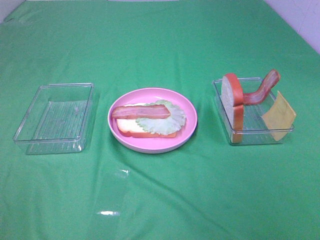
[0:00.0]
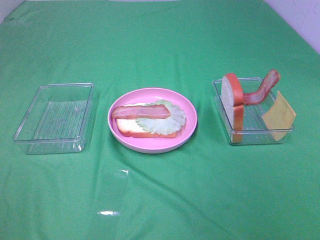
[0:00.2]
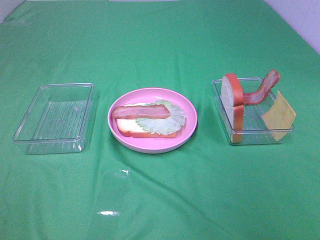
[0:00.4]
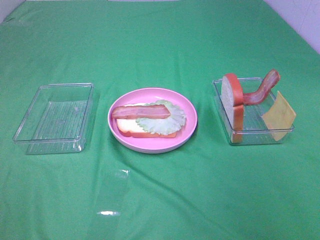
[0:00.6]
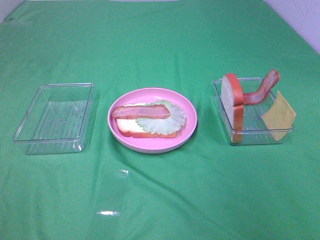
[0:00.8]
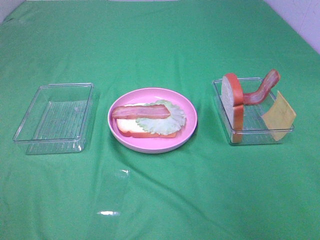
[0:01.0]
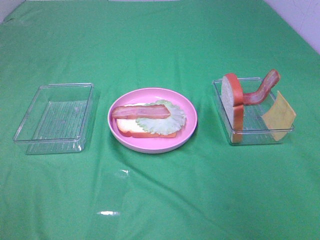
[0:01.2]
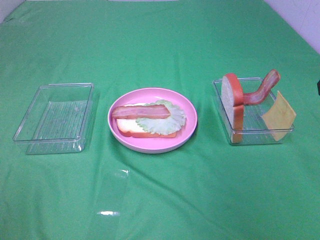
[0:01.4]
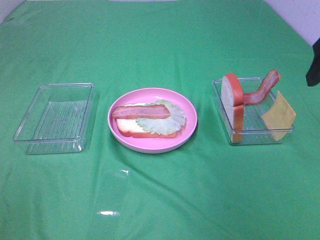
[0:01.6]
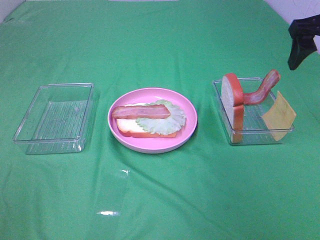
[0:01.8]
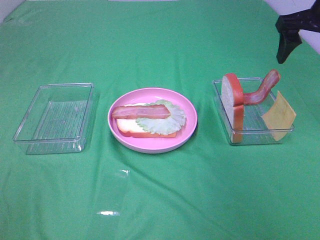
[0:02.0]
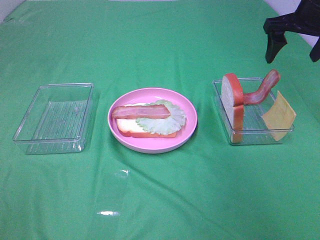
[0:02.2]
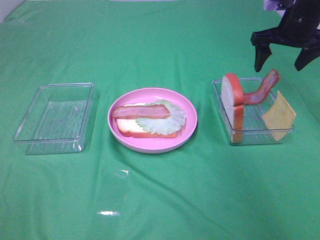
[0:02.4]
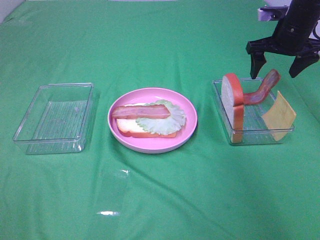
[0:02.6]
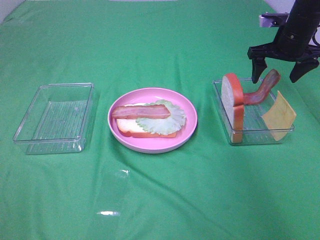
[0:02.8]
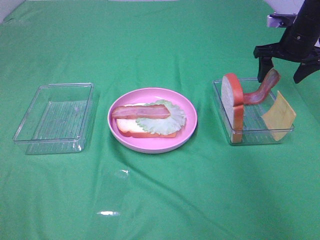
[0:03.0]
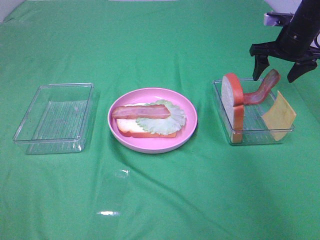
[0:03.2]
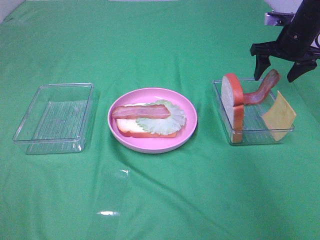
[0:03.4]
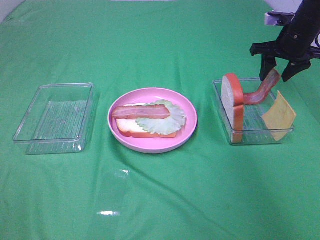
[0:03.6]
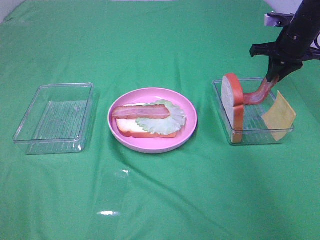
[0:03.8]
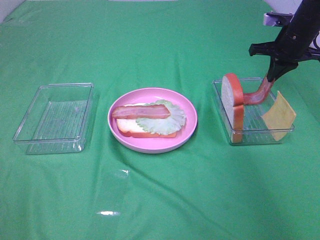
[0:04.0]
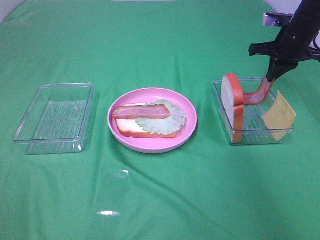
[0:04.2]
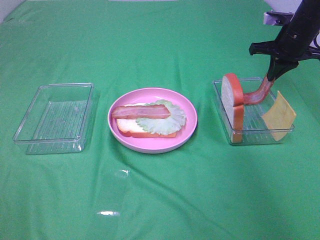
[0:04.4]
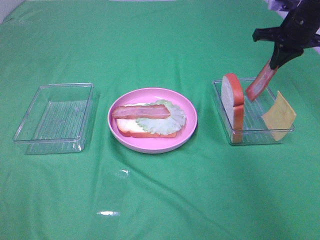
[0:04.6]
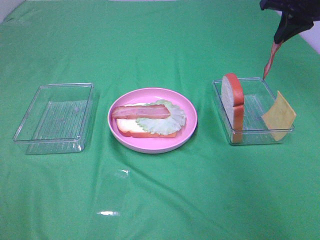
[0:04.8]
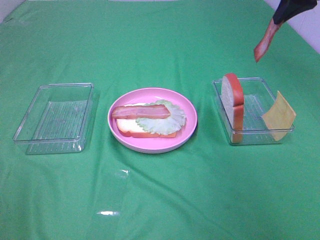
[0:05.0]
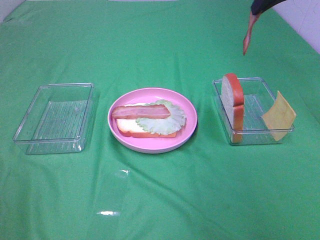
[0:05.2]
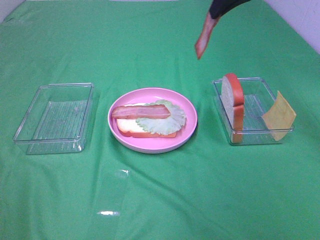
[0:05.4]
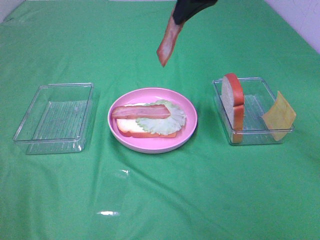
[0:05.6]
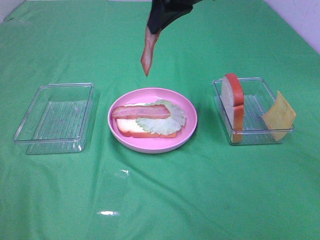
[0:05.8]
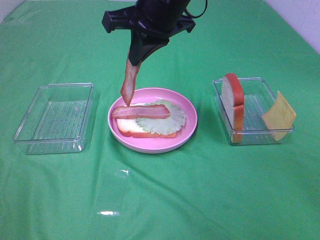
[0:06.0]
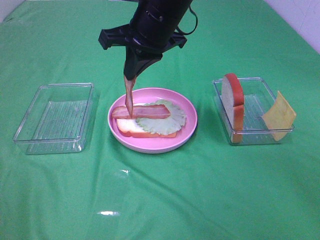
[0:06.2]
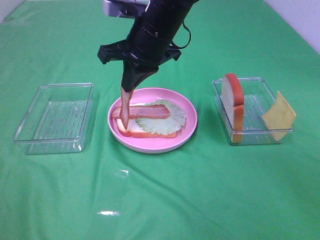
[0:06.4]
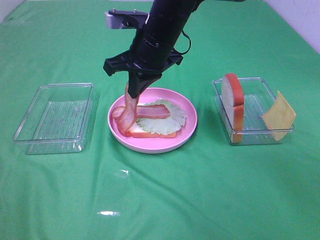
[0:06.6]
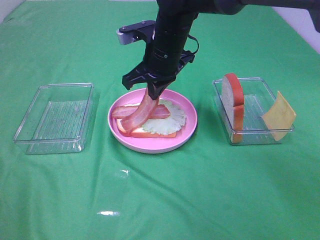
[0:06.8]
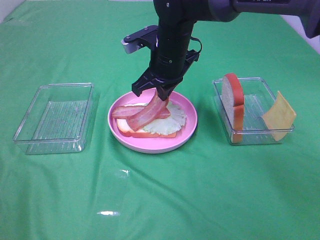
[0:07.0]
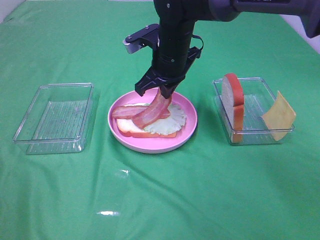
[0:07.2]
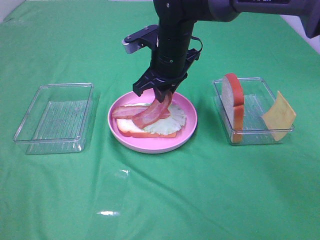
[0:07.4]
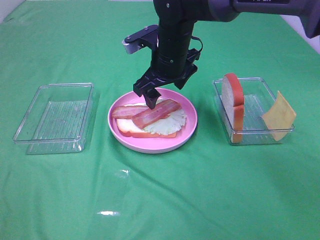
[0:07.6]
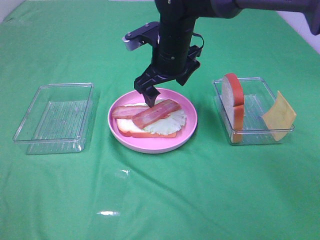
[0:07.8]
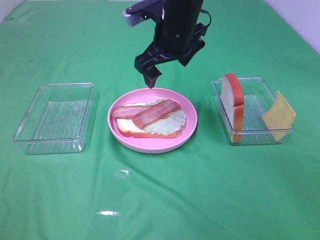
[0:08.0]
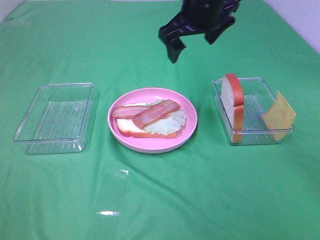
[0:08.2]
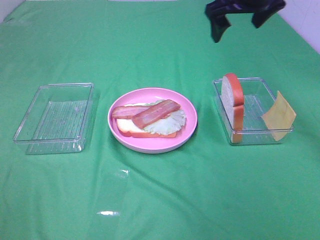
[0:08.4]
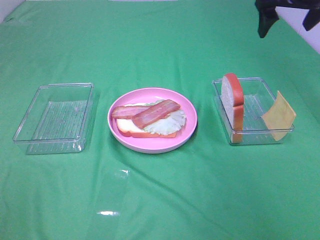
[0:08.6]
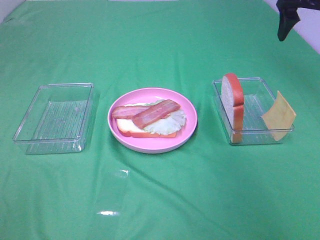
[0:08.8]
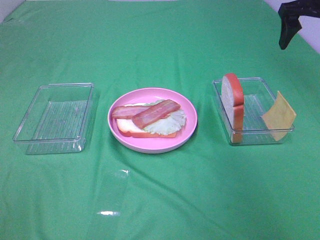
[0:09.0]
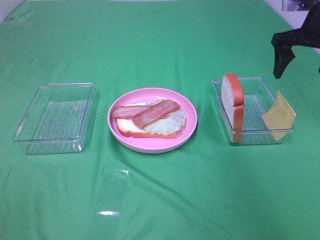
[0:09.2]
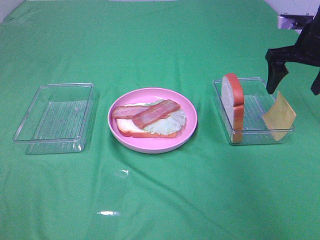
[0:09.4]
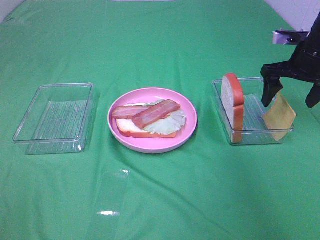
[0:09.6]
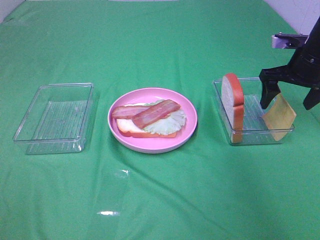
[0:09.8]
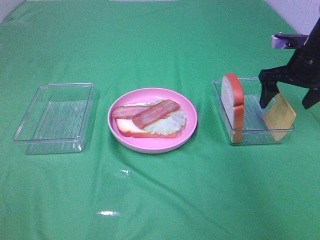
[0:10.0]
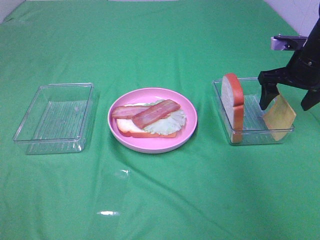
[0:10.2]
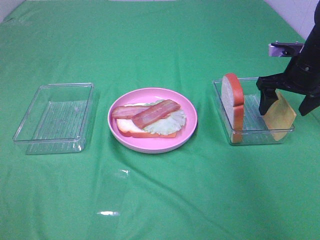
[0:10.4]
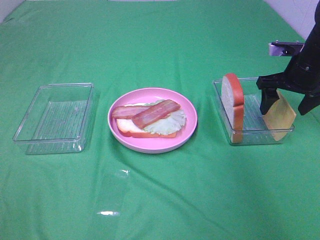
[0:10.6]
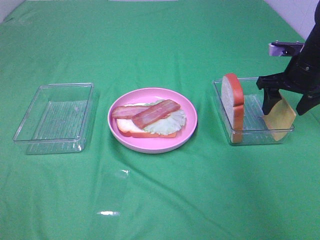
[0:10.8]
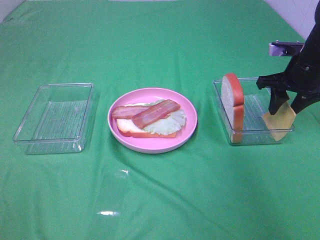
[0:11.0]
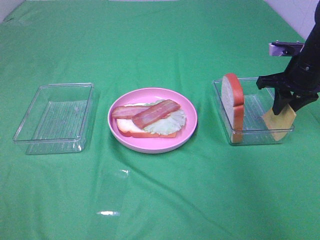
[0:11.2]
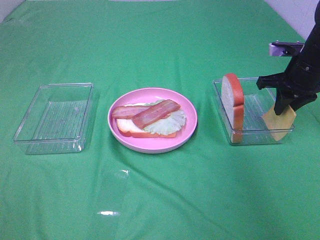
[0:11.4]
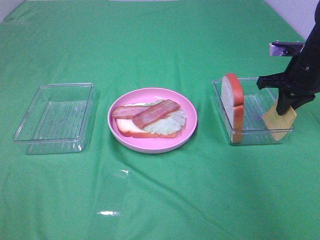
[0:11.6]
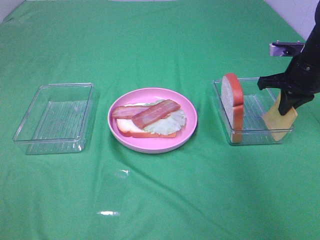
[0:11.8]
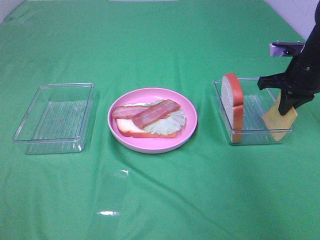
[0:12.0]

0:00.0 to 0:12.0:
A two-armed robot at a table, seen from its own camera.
Task of the whole recording: Make sandwiches.
Step, 0:00.0 to 0:04.4: Right hand:grab the bacon.
Step, 0:04.6 to 0:07.8: Right hand:place bacon on bacon.
0:01.6 to 0:03.0: The right gripper is displaced forward and downward by some 25 cm.
0:03.0 to 0:04.4: The right gripper closes its fingers.
0:04.4 to 0:06.0: The right gripper goes about 30 cm to the left and backward.
0:06.0 to 0:07.6: The right gripper heads downward, covering about 10 cm, and opens.
0:07.6 to 0:09.0: The right gripper travels to the right and upward by about 30 cm.
0:09.0 to 0:10.4: The right gripper goes approximately 15 cm downward.
0:10.4 to 0:12.0: The right gripper closes its fingers.

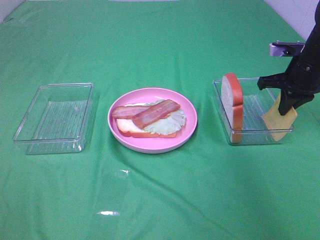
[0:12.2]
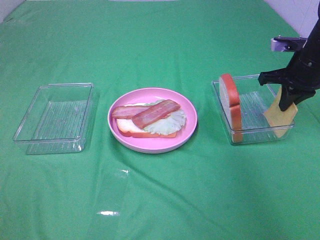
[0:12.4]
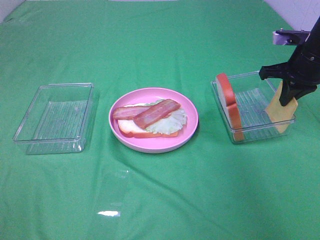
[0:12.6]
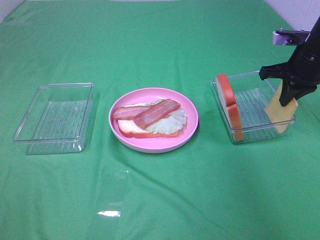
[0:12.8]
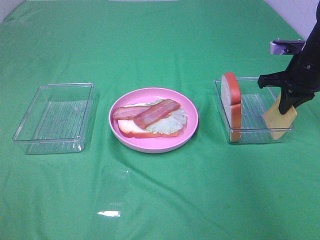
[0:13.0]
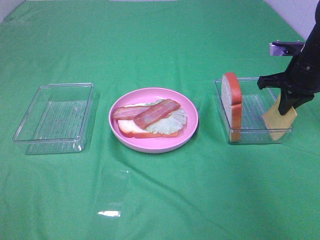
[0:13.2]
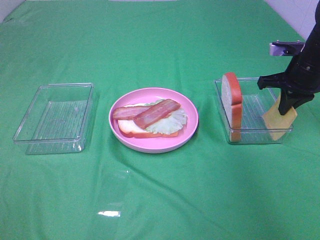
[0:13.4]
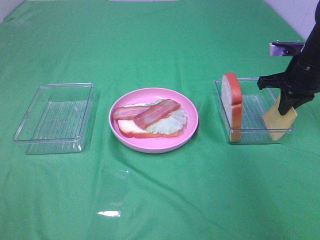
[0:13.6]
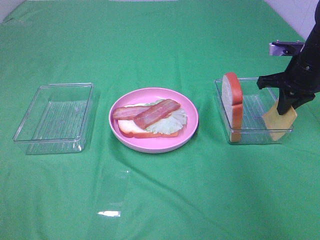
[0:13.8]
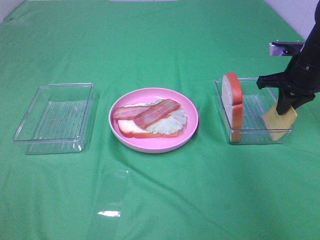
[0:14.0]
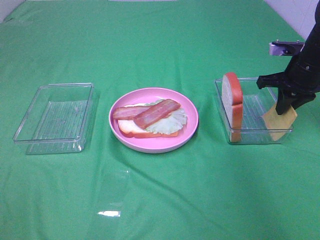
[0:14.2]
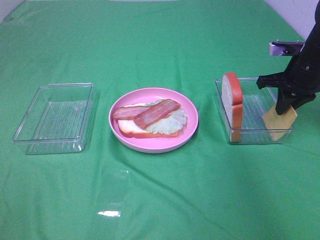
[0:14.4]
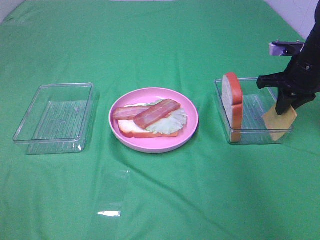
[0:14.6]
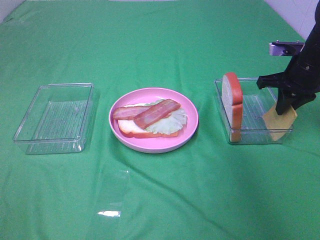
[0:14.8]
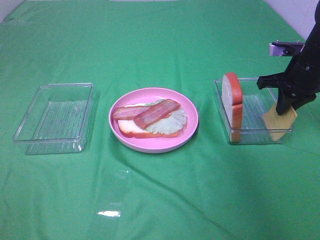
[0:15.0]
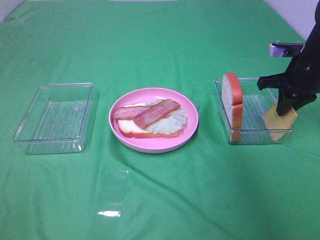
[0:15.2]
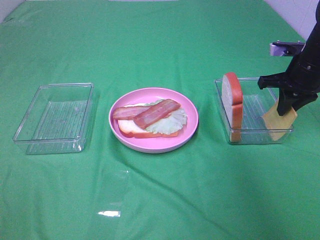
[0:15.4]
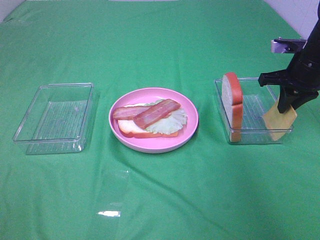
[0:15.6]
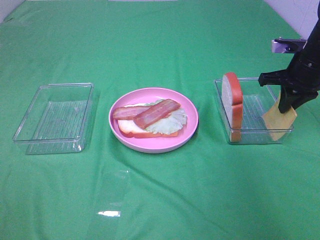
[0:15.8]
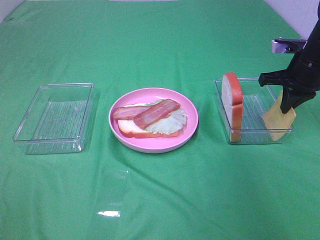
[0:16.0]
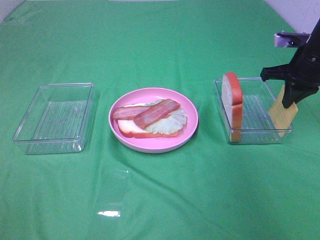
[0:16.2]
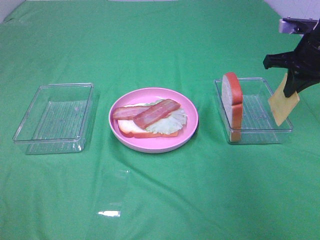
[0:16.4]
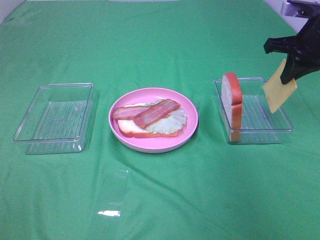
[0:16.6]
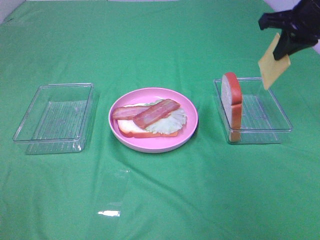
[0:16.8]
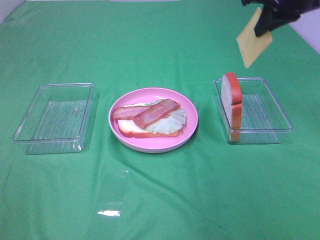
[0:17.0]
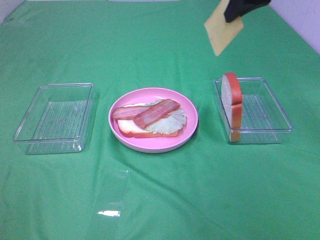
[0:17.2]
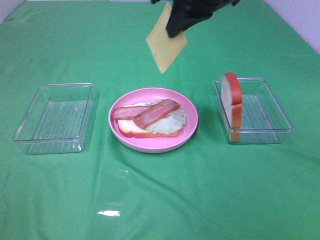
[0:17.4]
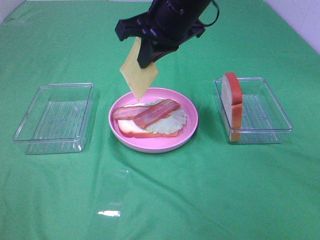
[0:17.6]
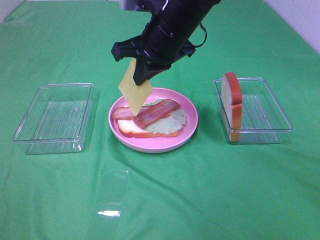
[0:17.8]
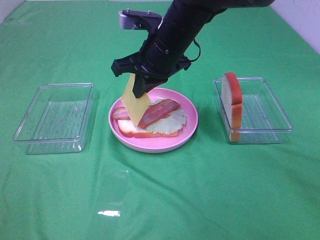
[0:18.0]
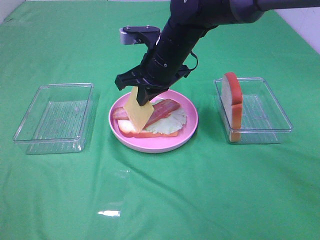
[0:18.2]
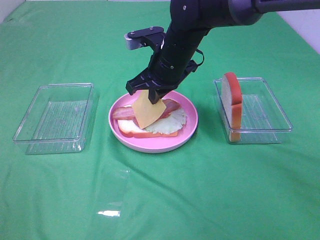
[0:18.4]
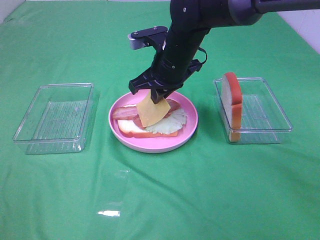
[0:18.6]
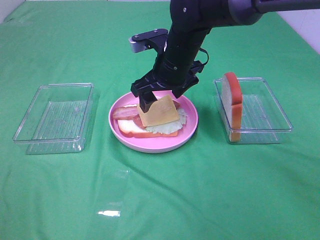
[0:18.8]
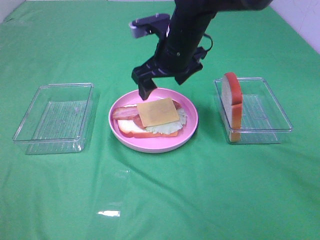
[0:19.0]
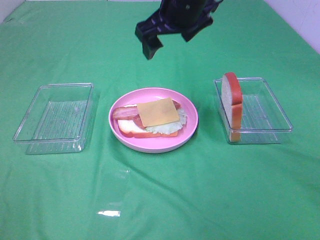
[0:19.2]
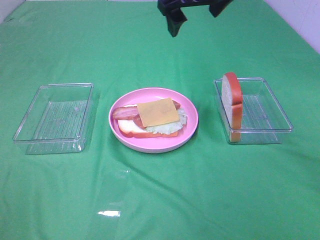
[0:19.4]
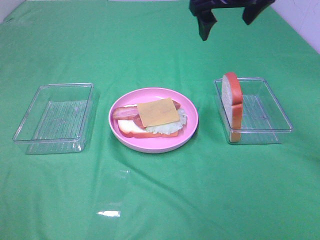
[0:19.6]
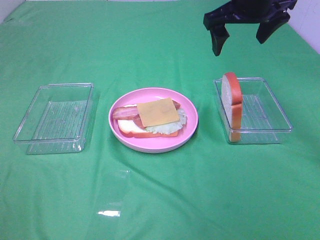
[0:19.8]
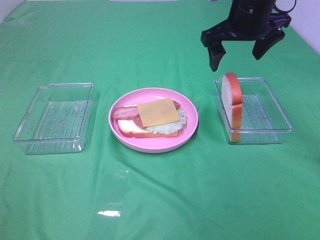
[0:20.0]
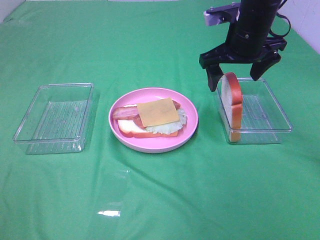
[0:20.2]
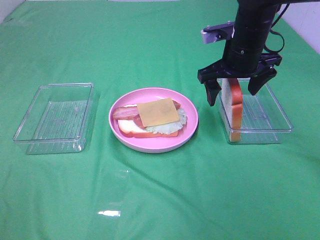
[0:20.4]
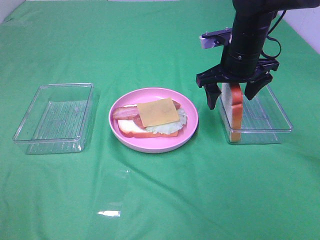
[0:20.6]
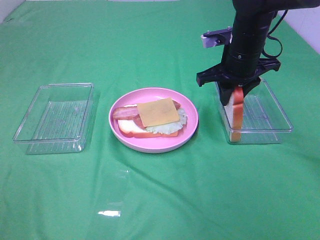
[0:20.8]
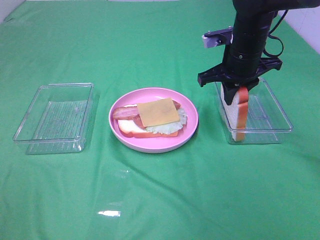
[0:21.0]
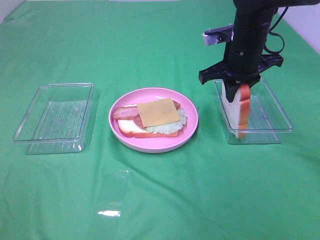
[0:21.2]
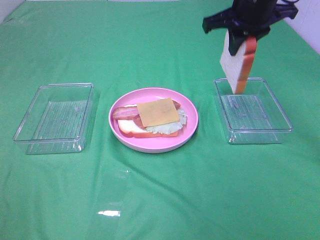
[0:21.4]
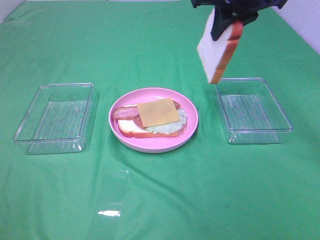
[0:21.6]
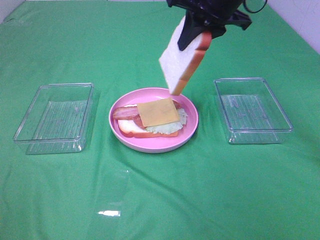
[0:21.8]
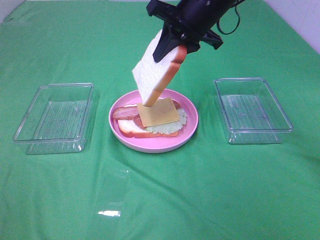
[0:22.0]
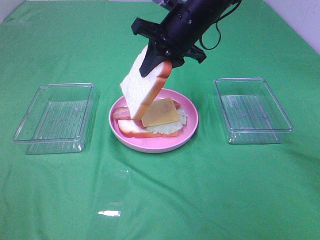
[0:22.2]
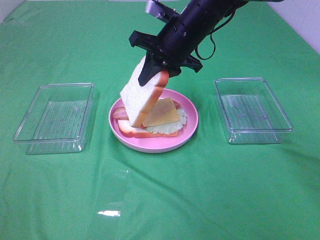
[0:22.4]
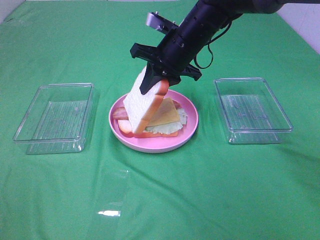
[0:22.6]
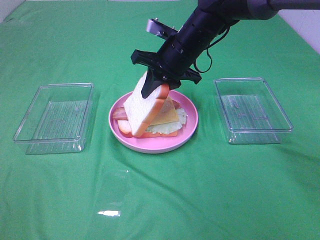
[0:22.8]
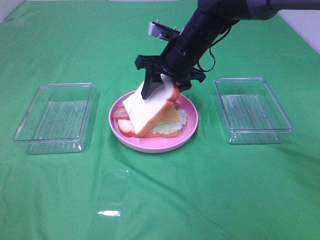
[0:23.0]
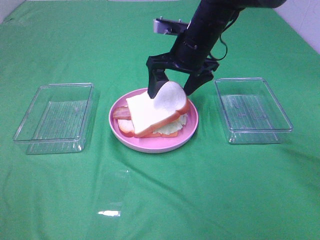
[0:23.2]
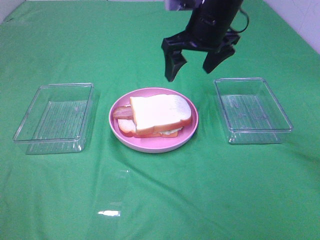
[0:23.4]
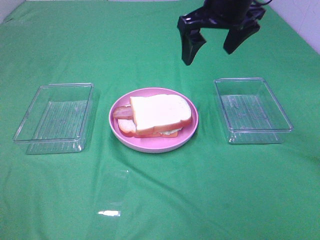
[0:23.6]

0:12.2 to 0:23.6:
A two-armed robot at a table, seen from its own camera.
Task of the whole recording: Make sandwiches.
Step, 0:12.4 to 0:18.8: Right hand:place the cheese slice on top of the bacon.
Step, 0:19.0 to 0:20.8: Right hand:grab the bread slice.
Step, 0:21.0 to 0:23.2: Right hand:place the bread slice on the cheese slice.
0:12.2 to 0:13.6: The grippers make only small movements.
0:13.6 to 0:15.0: Both grippers stay put.
0:15.0 to 0:16.4: The right gripper goes some 5 cm upward.
0:16.4 to 0:17.8: The right gripper is displaced to the left by some 25 cm.
0:17.8 to 0:19.4: The right gripper is displaced upward and to the right by some 10 cm, and opens up.
0:19.4 to 0:20.8: The right gripper shifts roughly 15 cm downward and to the right, and closes its fingers.
0:20.8 to 0:22.2: The right gripper is displaced to the left by some 10 cm.
0:22.2 to 0:23.6: The right gripper is displaced upward and to the right by roughly 10 cm, and opens.
